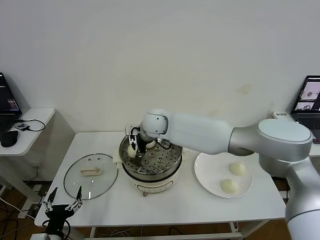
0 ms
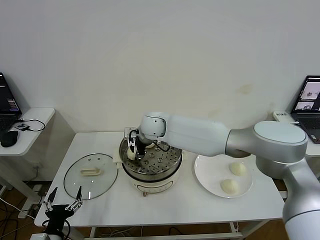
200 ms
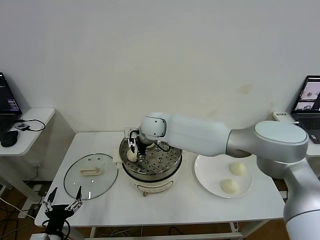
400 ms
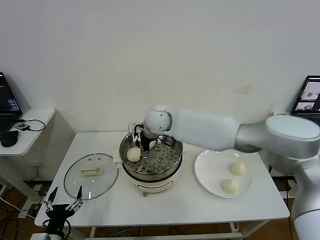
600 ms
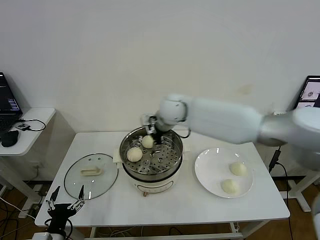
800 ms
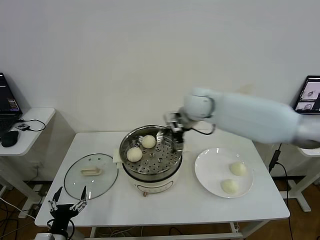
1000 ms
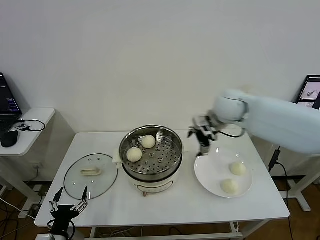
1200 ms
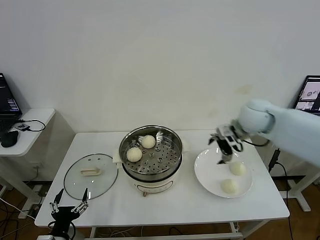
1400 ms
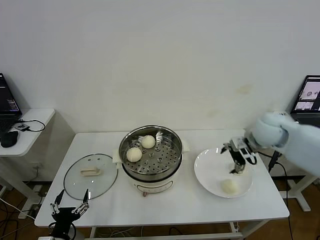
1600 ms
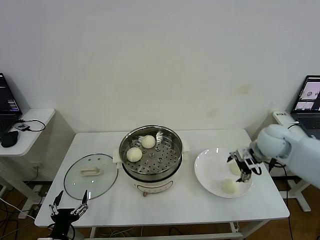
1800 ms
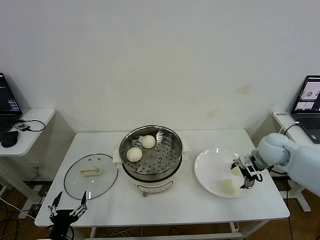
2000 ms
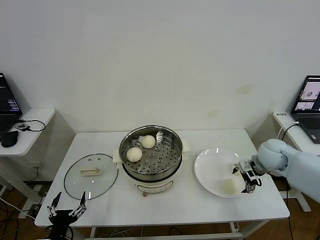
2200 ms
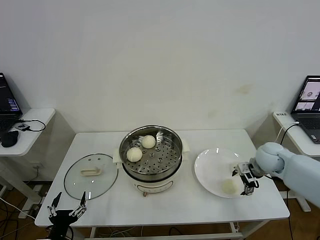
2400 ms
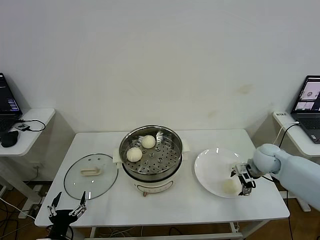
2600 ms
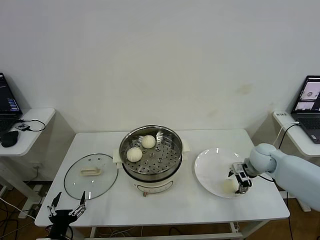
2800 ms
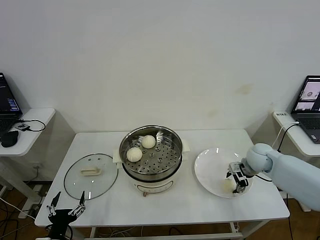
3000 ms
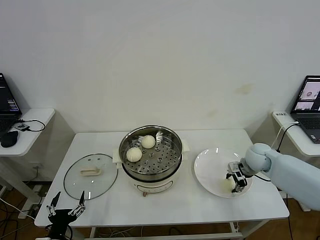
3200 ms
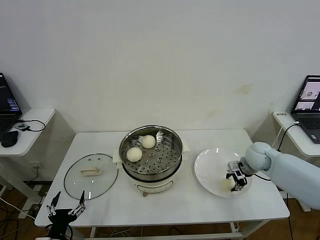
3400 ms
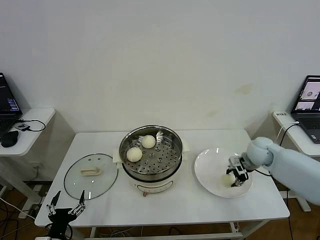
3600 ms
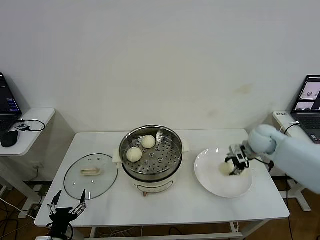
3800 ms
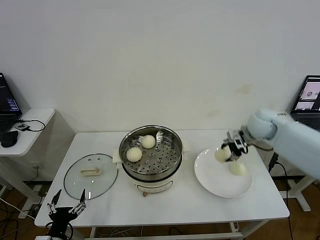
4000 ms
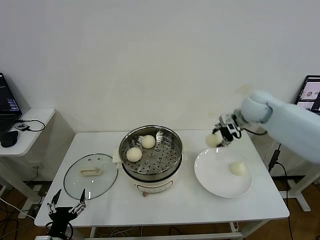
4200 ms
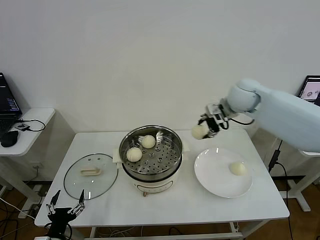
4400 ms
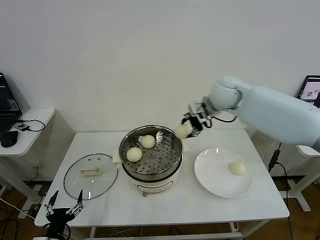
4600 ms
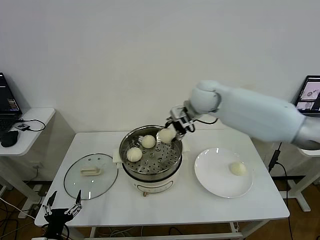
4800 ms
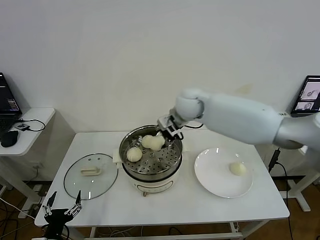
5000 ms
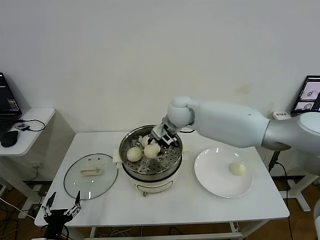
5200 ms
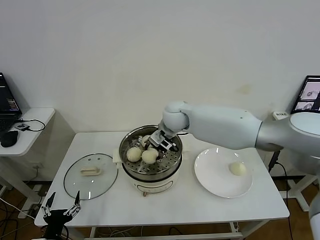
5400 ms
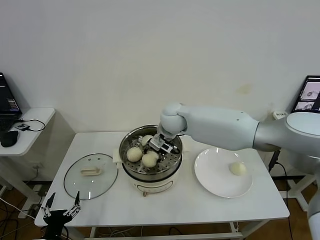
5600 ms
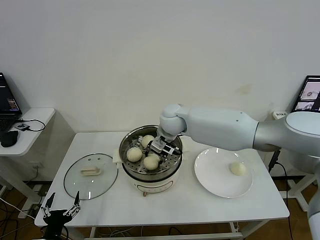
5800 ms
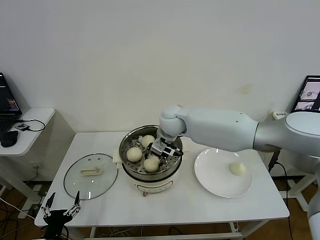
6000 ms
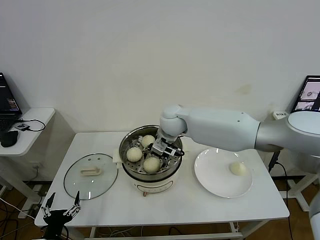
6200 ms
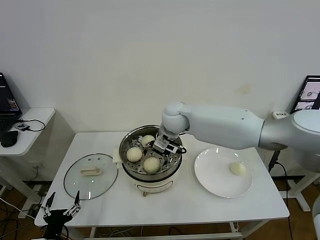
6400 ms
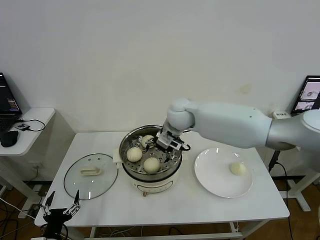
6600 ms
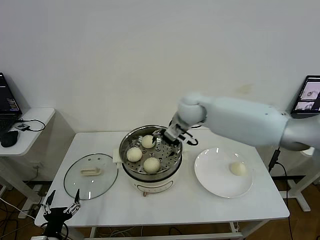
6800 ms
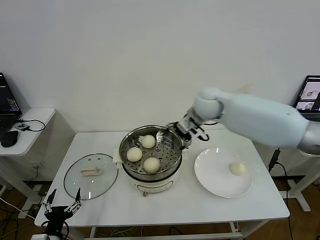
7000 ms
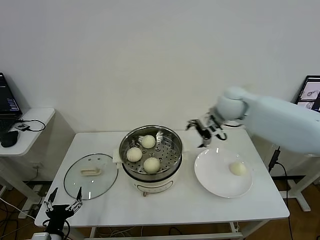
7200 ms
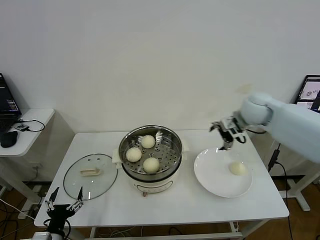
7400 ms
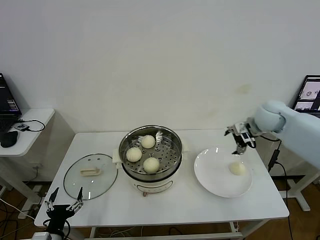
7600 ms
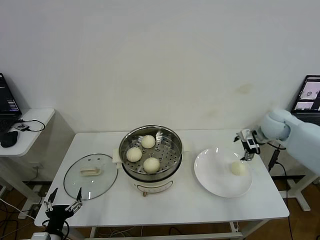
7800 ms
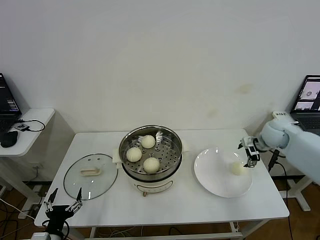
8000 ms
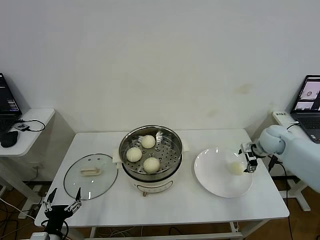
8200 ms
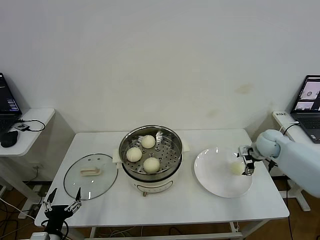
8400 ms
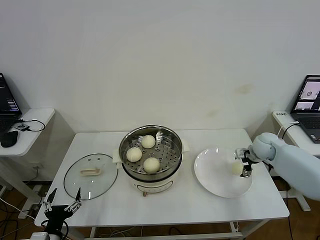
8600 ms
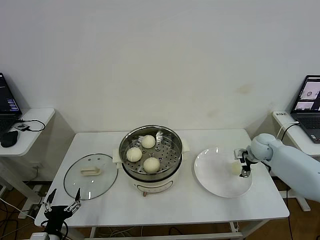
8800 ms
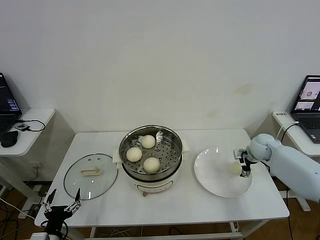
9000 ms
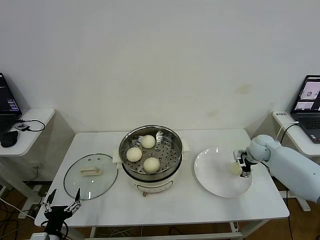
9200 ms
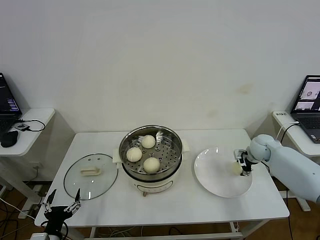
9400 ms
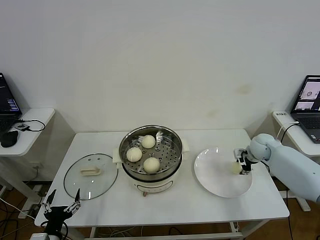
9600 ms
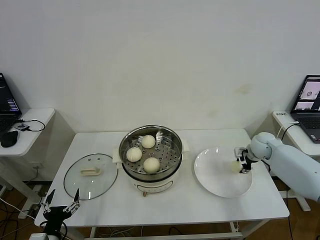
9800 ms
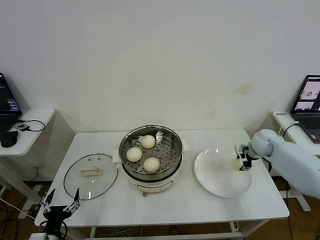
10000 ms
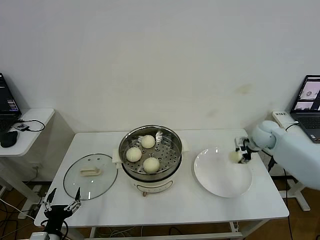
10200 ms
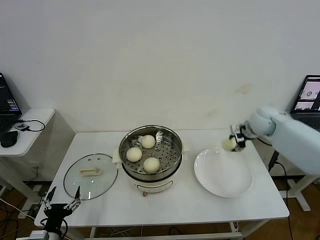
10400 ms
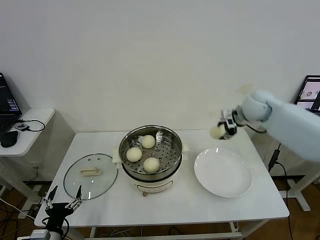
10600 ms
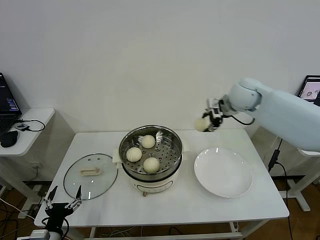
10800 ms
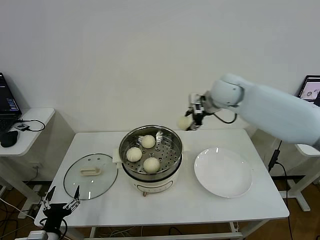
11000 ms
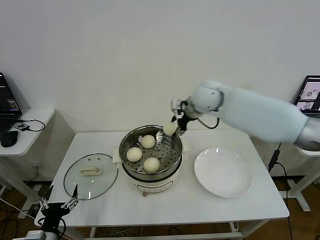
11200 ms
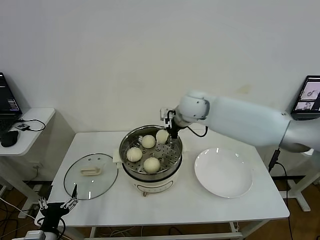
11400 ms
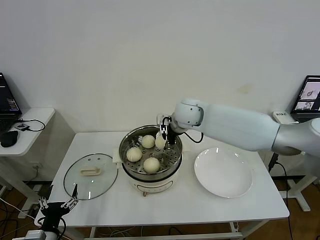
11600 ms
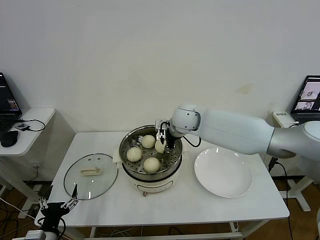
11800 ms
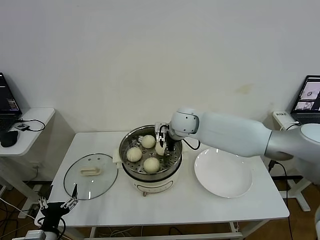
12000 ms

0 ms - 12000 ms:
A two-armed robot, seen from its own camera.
Step, 600 ms - 3000 ms: Grasp the baozi in the plate with right gripper.
Step, 3400 ms - 6200 ms: Place the baozi on the steamer with right gripper.
Step, 6400 ms - 9400 ms: Grasp the baozi in the plate with right gripper.
0 ms - 1600 ms: The right gripper goes approximately 35 cm to the right, and opens up.
1600 ms - 3000 ms: The right gripper heads downward, covering about 15 cm, and closes its fingers.
3000 ms - 4400 ms: The right gripper travels upward and to the left by some 25 cm, and closes its fingers.
4400 ms - 6000 ms: The right gripper moves to the left, approximately 20 cm.
6000 ms - 7600 ms: The right gripper is displaced to the right by roughly 30 cm, and opens its fingers.
7600 ms - 9000 ms: The right gripper moves downward, some 15 cm.
9000 ms - 10400 ms: The right gripper moves upward, some 10 cm, and closes up.
10400 ms - 12000 ms: The right gripper heads to the left, covering approximately 30 cm.

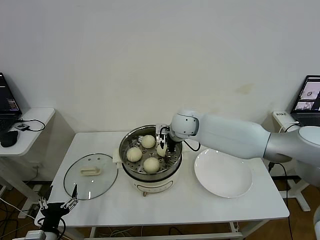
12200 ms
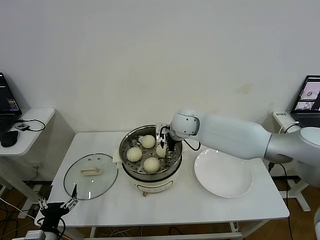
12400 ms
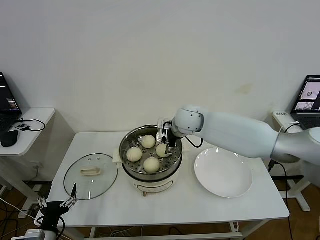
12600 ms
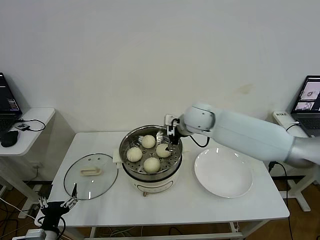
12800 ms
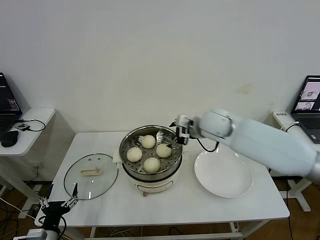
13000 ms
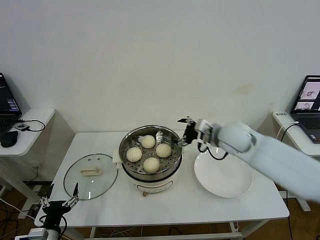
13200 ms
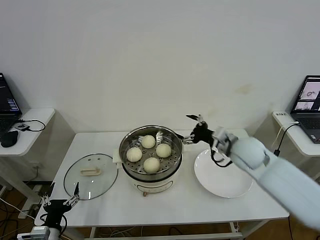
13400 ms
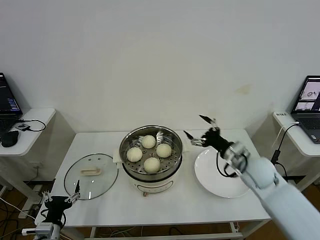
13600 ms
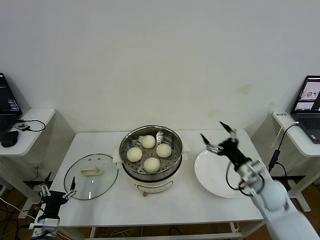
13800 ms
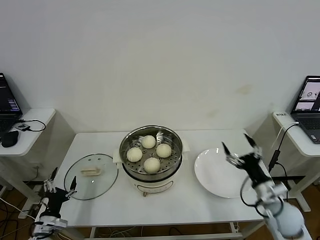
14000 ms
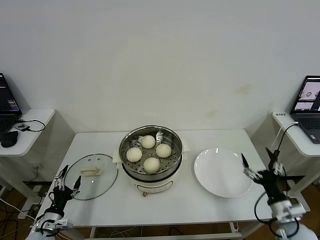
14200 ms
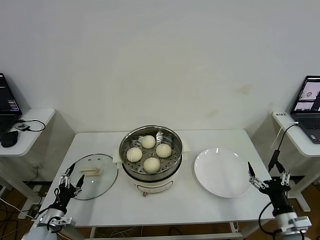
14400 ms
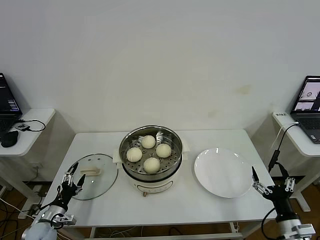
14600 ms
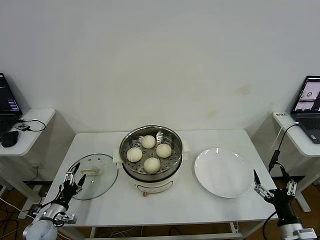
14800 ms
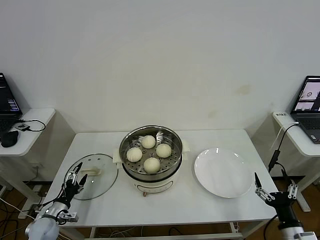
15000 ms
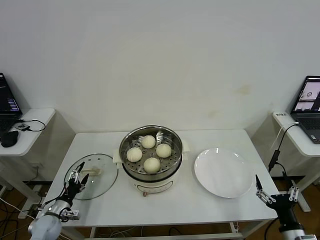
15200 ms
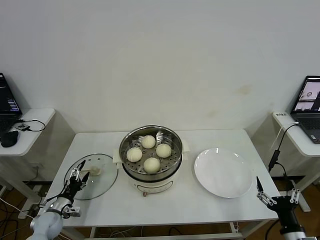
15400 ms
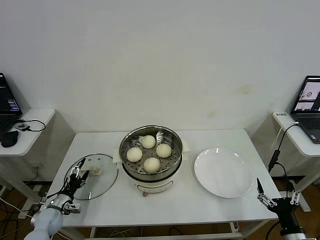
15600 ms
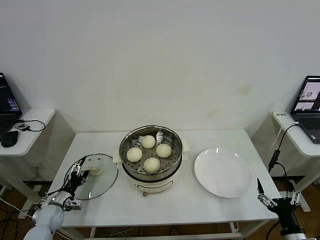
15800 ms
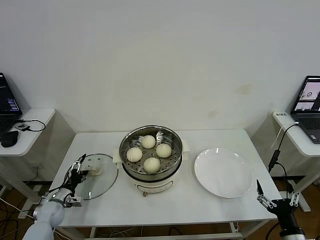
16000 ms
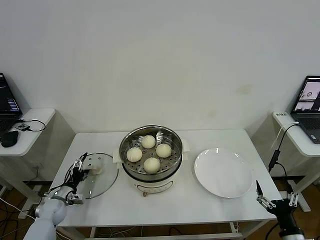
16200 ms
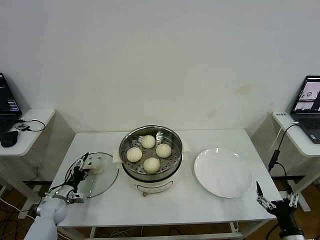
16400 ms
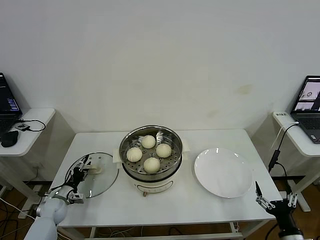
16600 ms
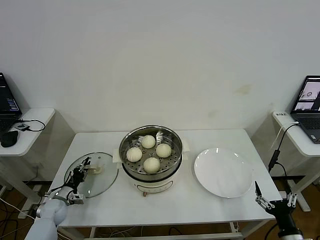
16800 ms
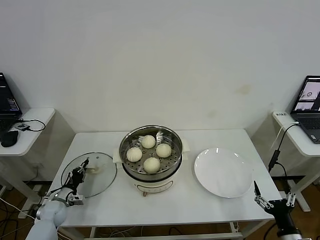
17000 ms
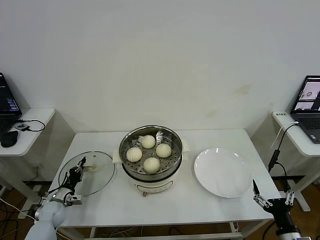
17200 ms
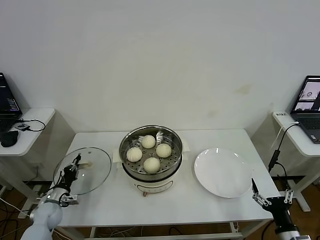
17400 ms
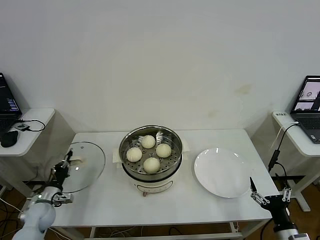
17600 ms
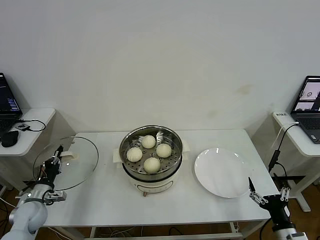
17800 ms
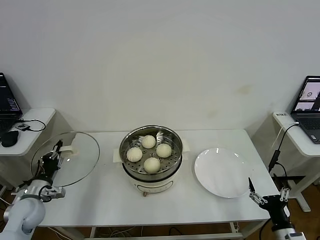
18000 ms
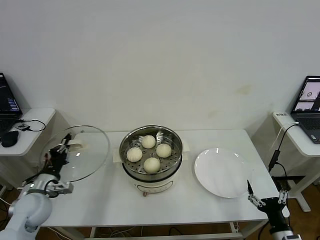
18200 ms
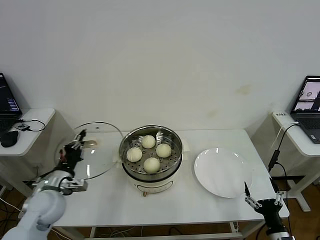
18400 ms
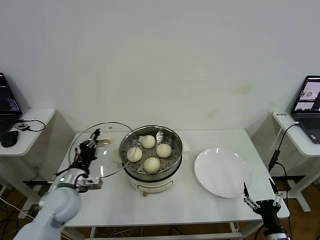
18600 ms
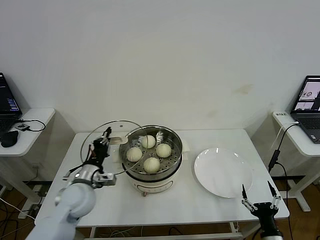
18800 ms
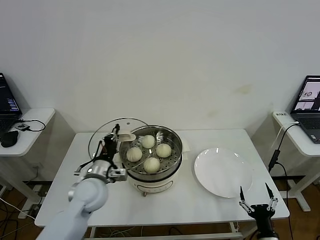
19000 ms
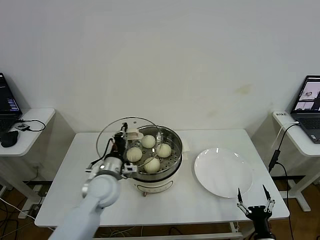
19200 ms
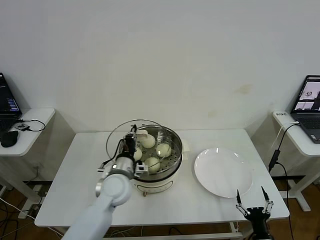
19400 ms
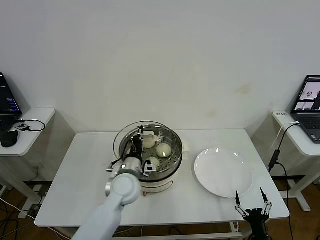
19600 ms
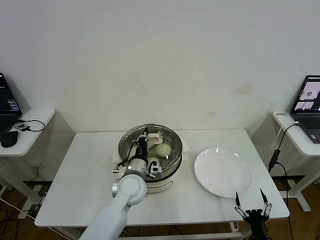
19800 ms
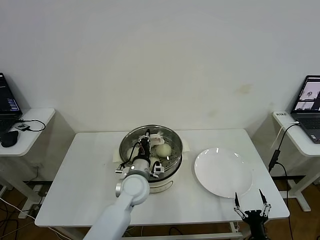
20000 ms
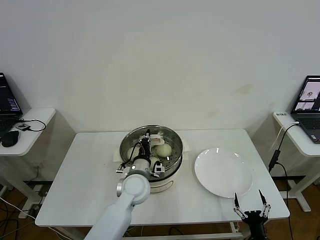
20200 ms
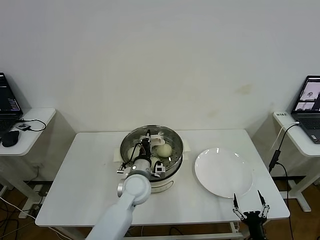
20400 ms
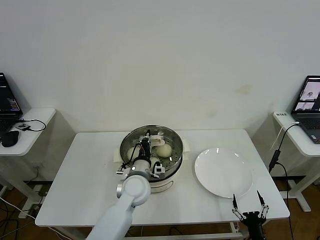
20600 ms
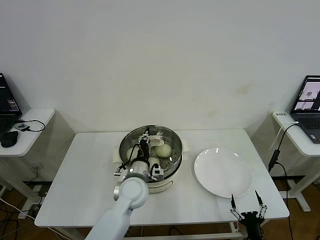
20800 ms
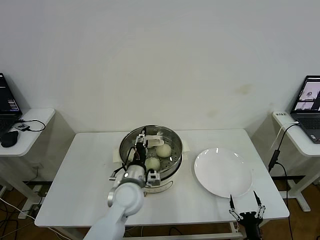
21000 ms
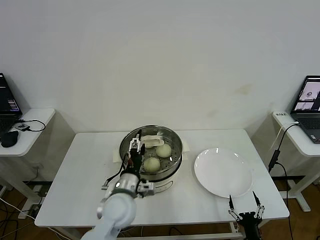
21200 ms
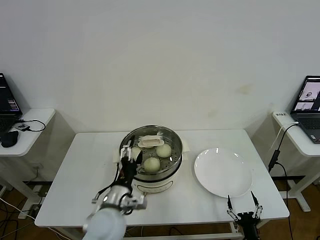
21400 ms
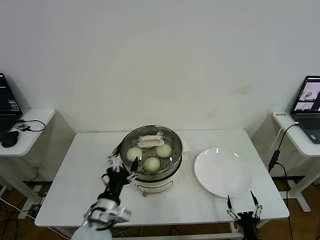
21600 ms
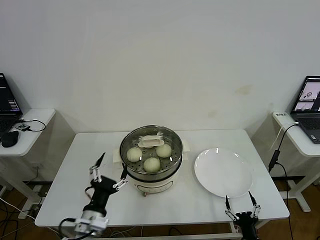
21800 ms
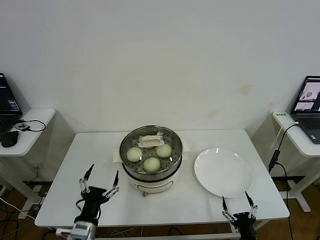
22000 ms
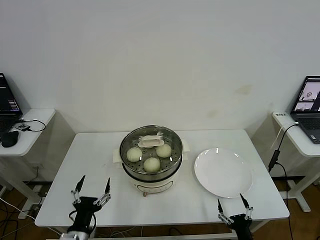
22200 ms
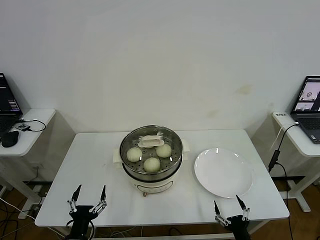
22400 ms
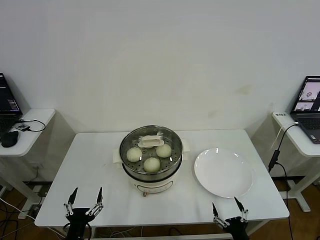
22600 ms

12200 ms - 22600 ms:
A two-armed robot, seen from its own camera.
Step, 12600 ms - 17000 ms: Grasp the pot lid with left gripper.
Step, 17200 ms - 20400 ms: Place the pot lid on the steamer with left gripper.
12200 ms - 13600 ms: The right gripper shifts about 25 cm to the right and backward, and opens up.
13600 ms - 15200 ms: The left gripper shifts some 15 cm forward, downward and to the left, while the right gripper moves backward, downward and to the right, roughly 30 cm.
15200 ms - 16600 ms: The left gripper is displaced forward by roughly 5 cm, and closes.
16600 ms - 18200 ms: The left gripper is displaced upward by approximately 15 cm, and closes.
18200 ms - 19600 ms: The left gripper goes about 30 cm to the right; the right gripper travels downward and to the left by some 10 cm.
19600 ms - 21200 ms: The left gripper heads backward, covering roughly 5 cm, and opens its fingers.
21200 ms - 22600 ms: The left gripper goes roughly 25 cm backward, to the left and downward. The right gripper travels upward by roughly 5 cm.
